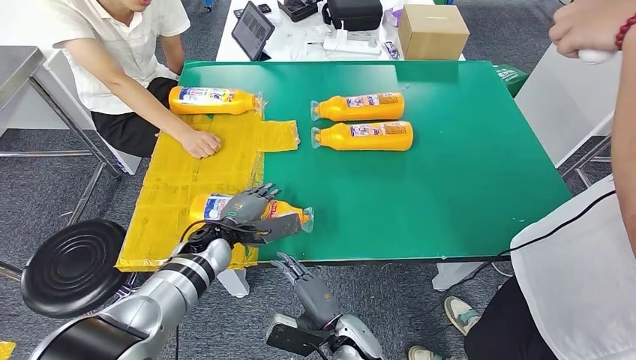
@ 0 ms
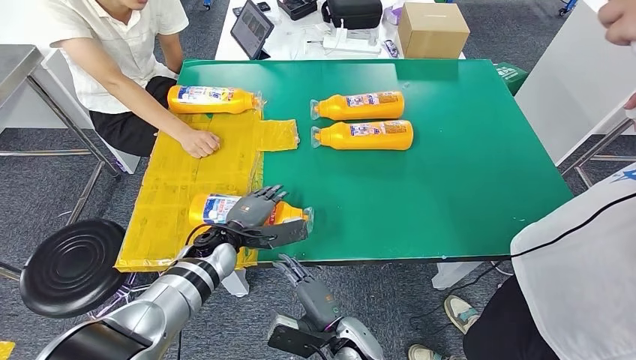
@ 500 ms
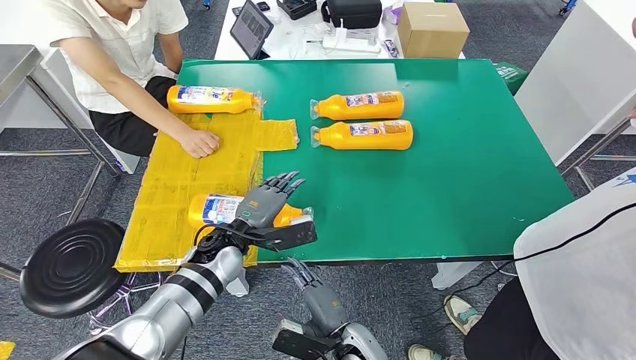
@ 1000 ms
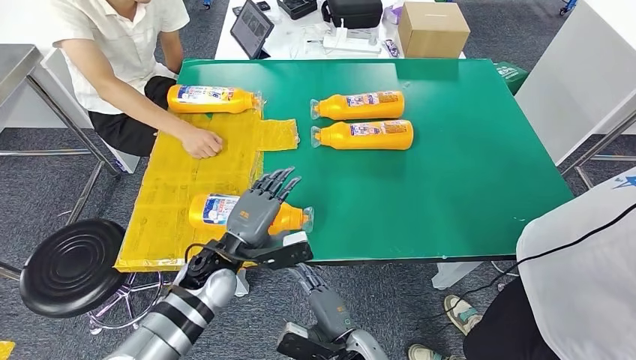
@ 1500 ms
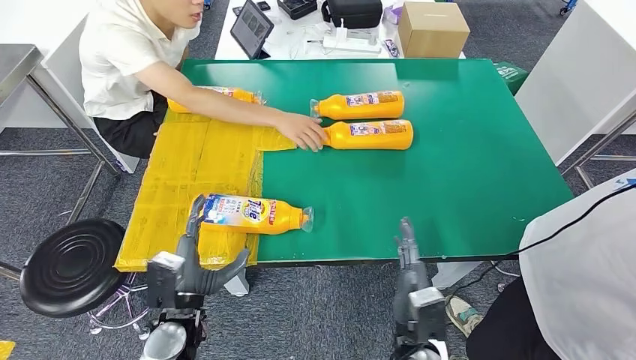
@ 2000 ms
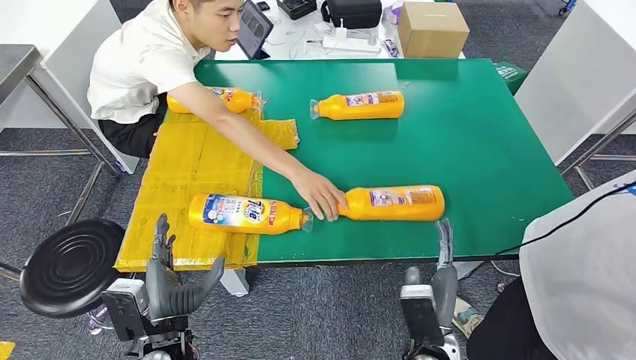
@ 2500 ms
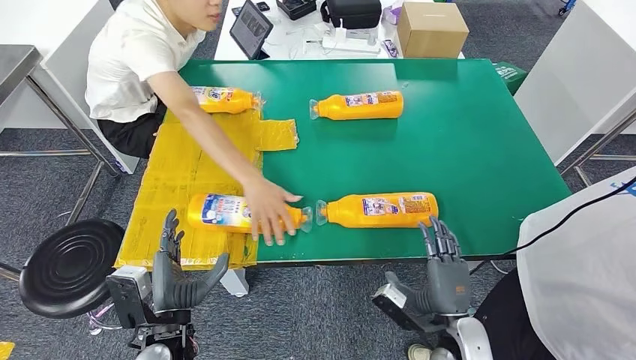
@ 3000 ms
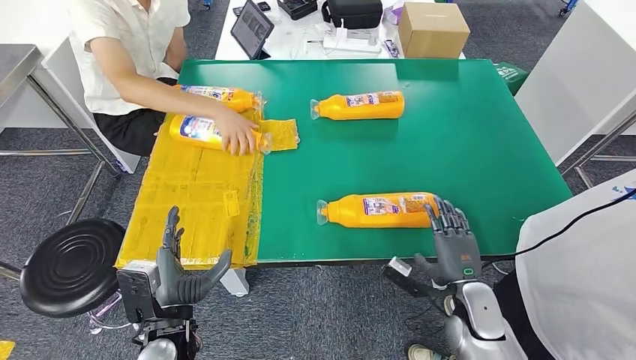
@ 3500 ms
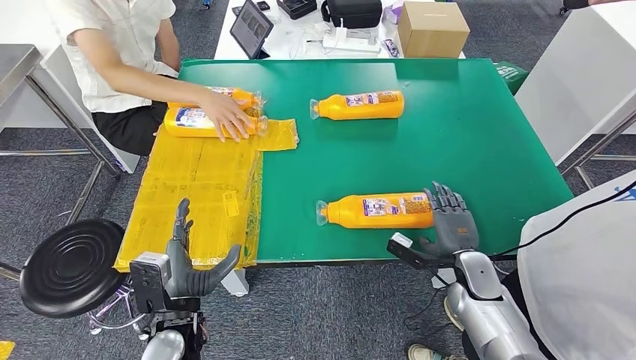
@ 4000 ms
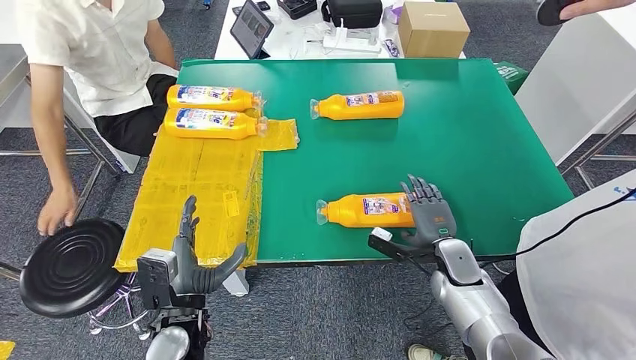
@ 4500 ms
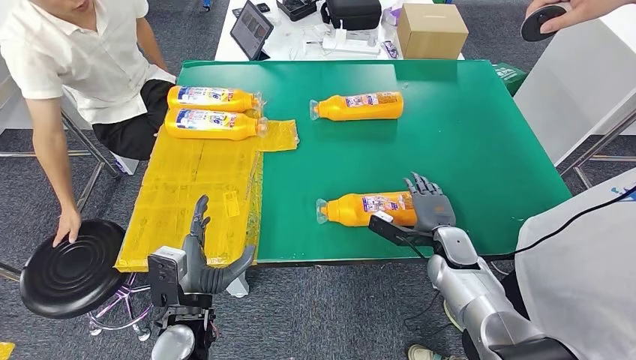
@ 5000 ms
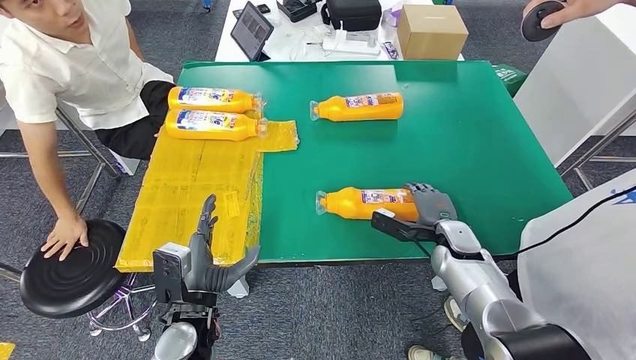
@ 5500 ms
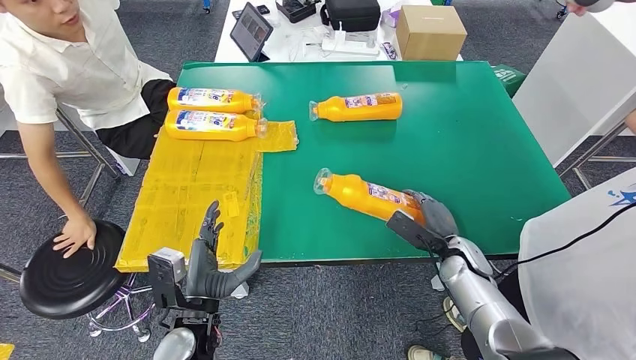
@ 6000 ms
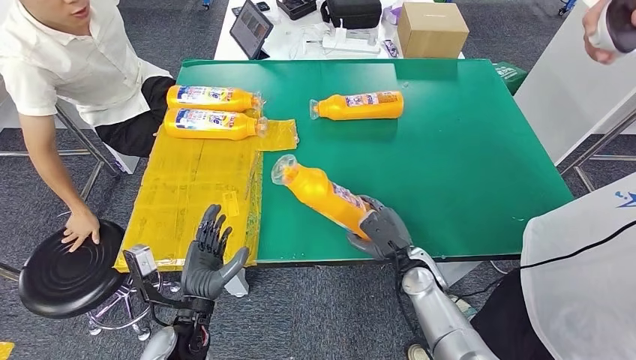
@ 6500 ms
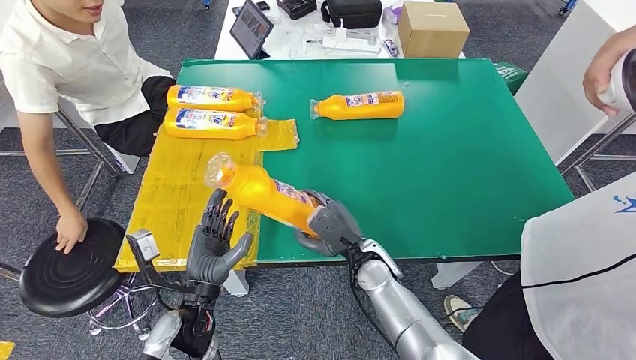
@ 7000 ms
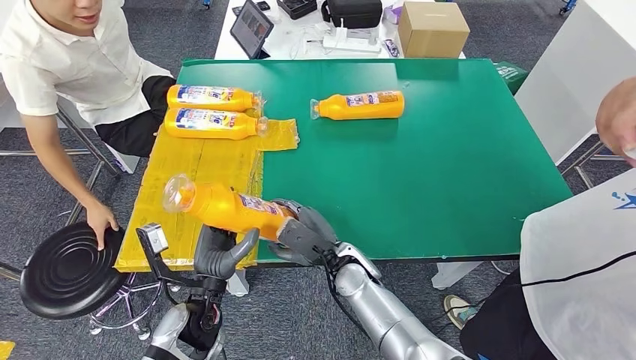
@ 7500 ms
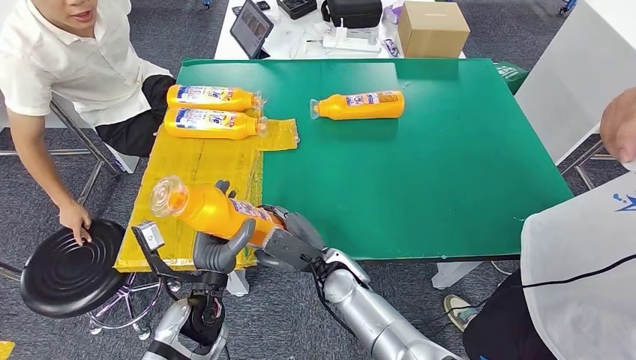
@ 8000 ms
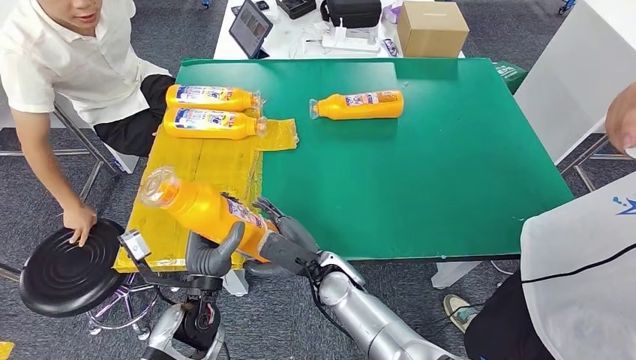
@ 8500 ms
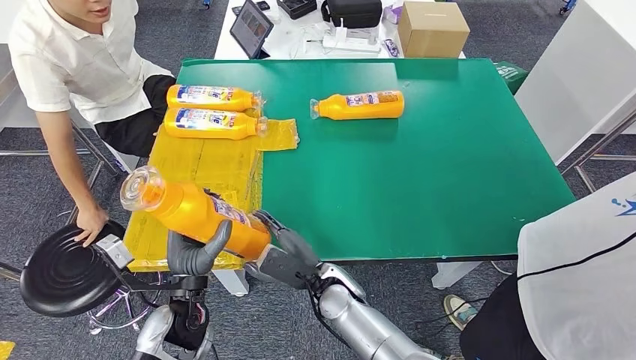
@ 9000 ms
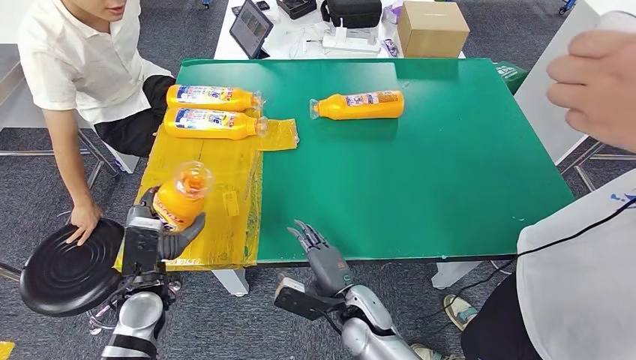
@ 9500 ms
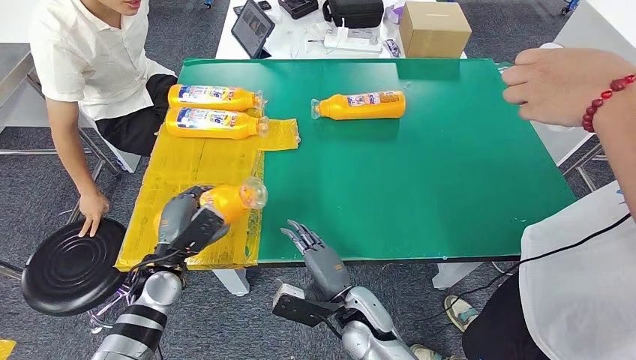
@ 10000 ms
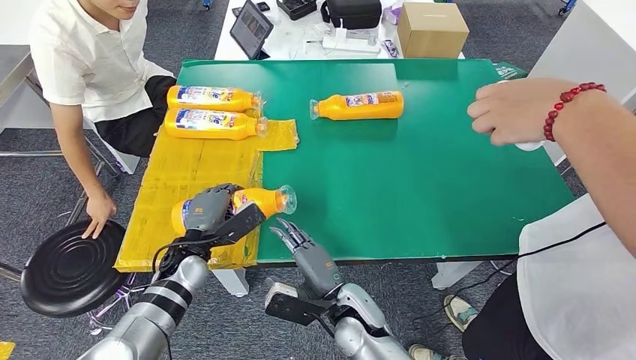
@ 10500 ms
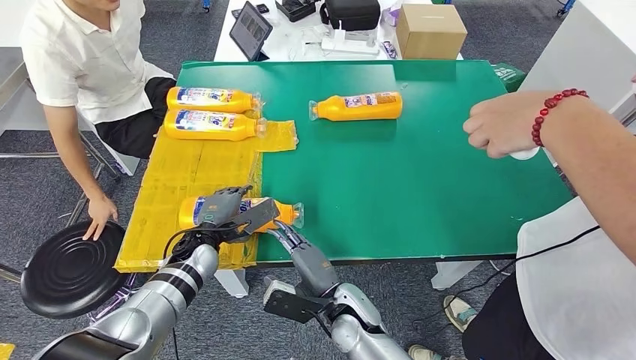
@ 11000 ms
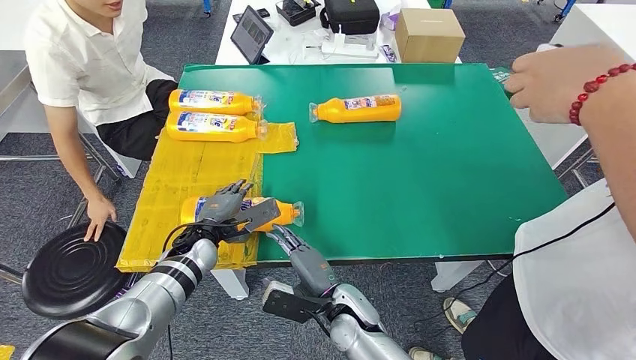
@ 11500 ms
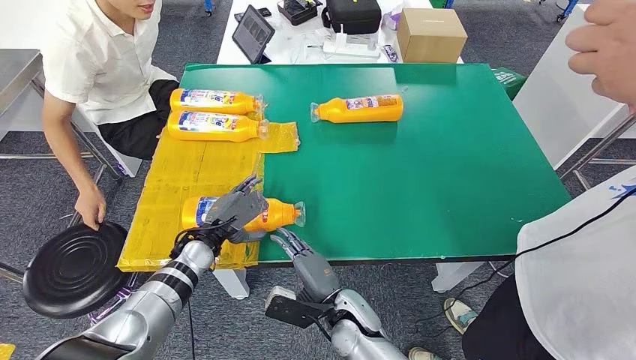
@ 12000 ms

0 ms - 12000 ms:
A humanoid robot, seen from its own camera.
Step, 2500 ms - 6000 ms: Pick up the fast-moving consumer goods bottle from the table.
2000 ms - 4000 ms: The right hand shifts some 20 cm to the right and forward.

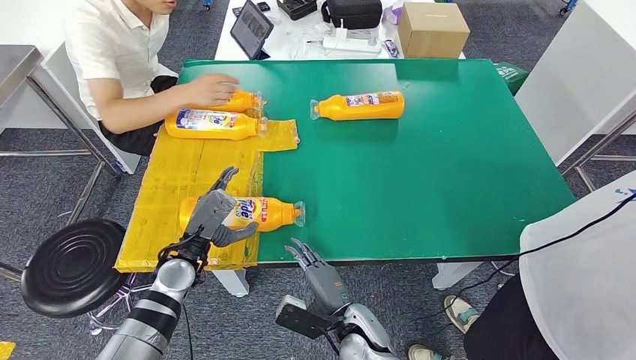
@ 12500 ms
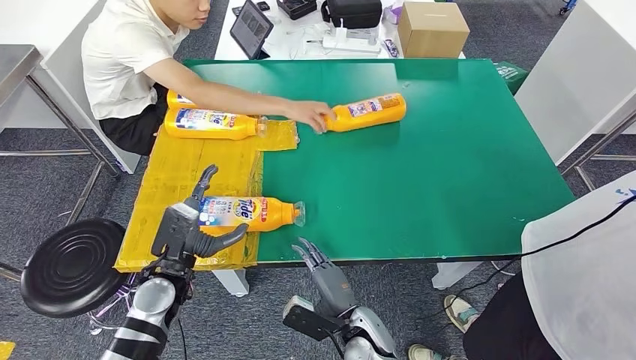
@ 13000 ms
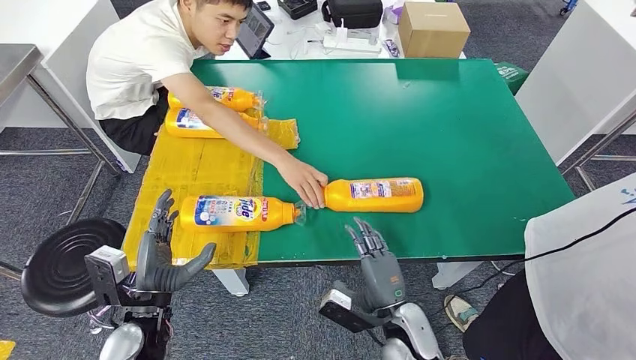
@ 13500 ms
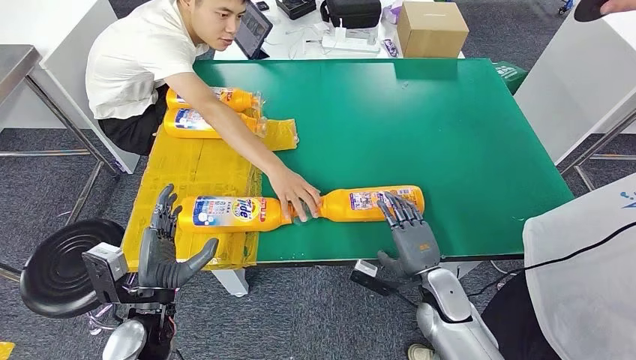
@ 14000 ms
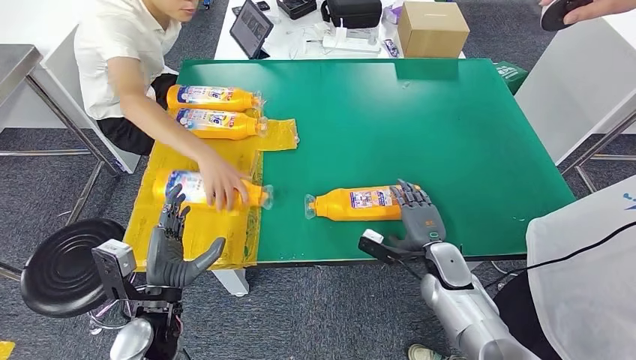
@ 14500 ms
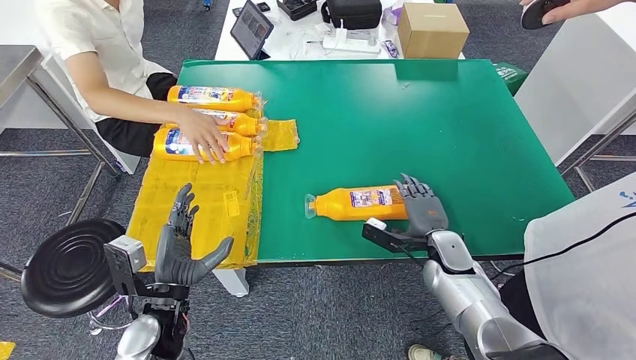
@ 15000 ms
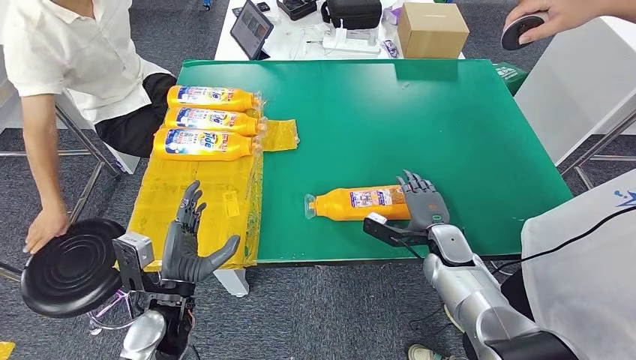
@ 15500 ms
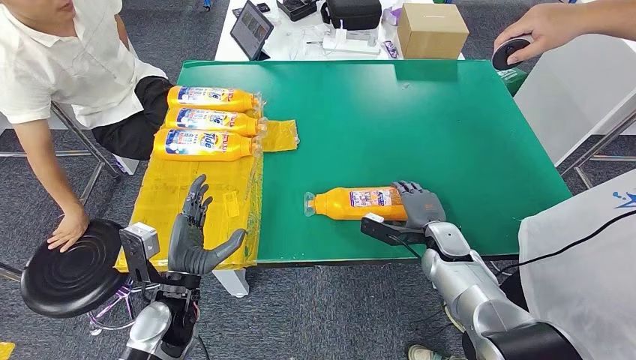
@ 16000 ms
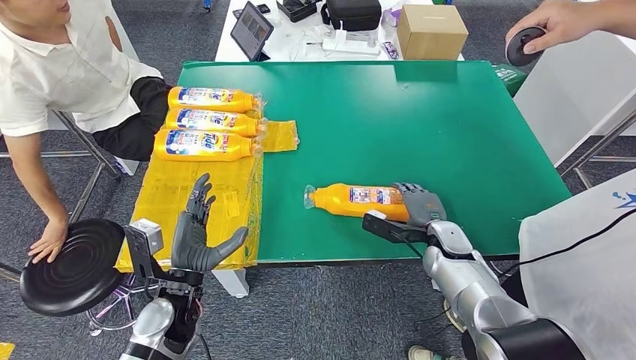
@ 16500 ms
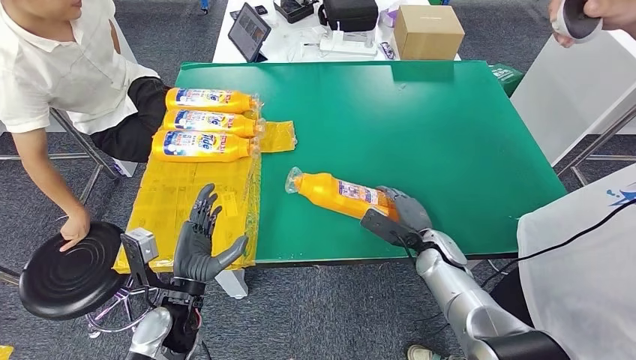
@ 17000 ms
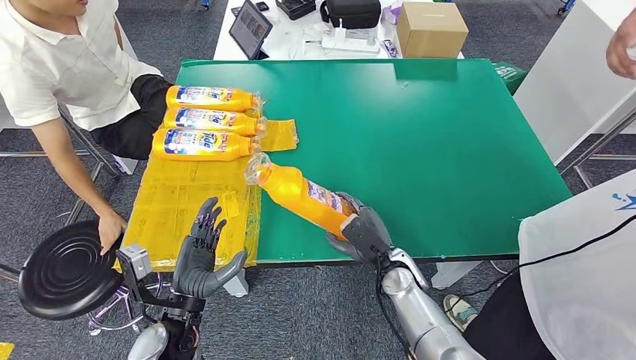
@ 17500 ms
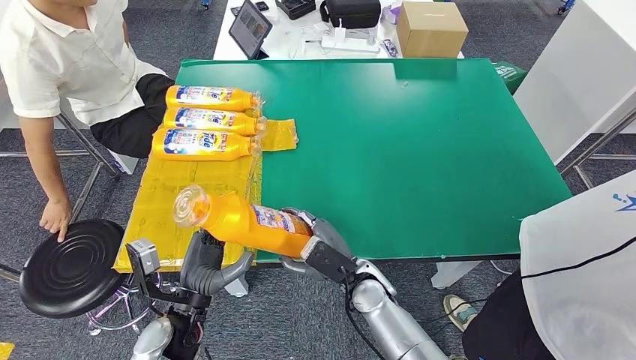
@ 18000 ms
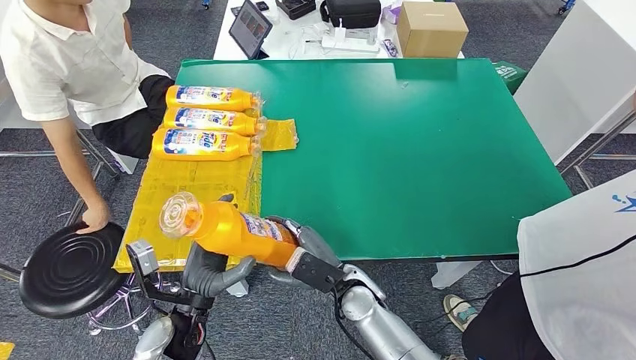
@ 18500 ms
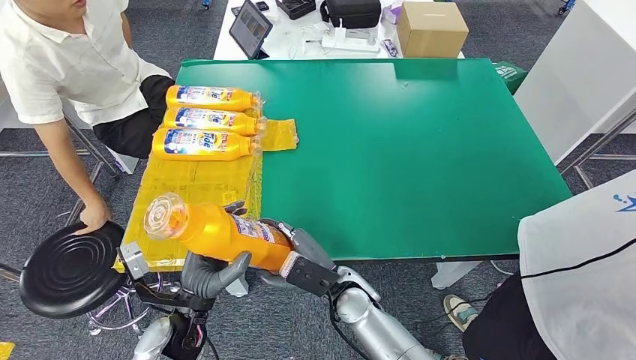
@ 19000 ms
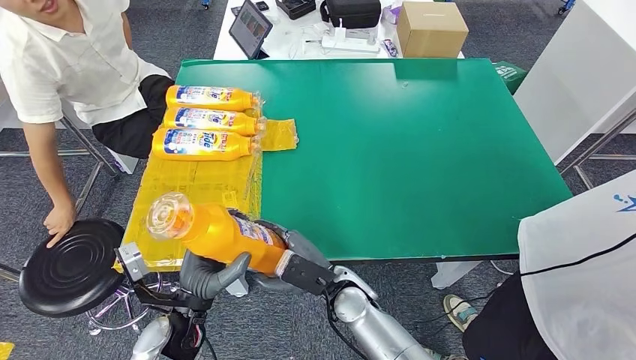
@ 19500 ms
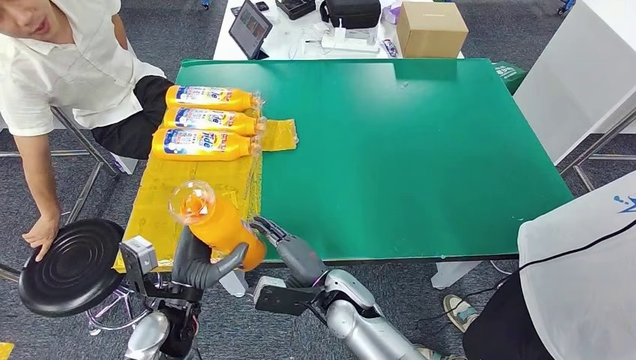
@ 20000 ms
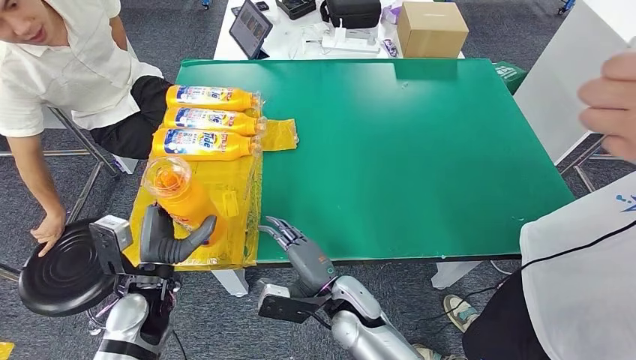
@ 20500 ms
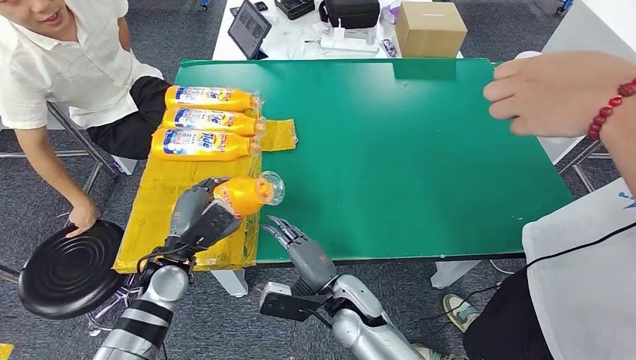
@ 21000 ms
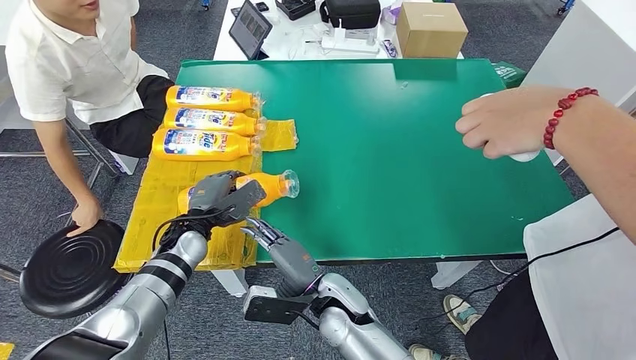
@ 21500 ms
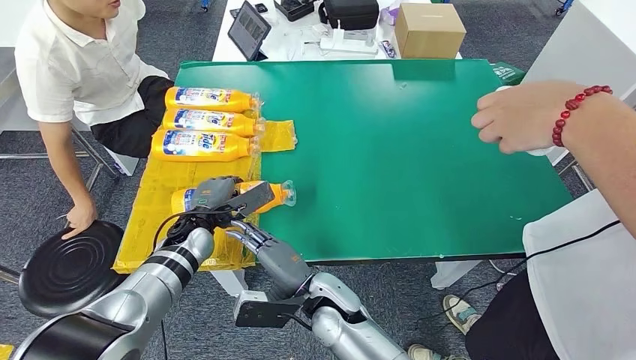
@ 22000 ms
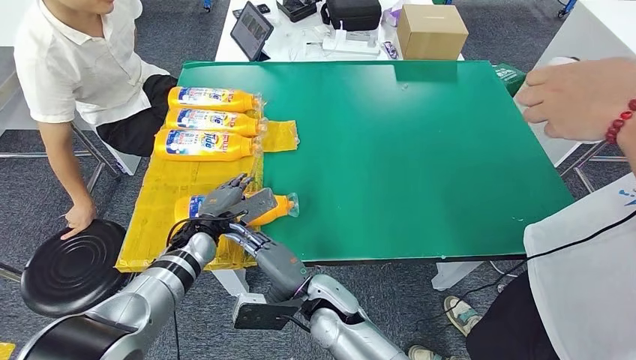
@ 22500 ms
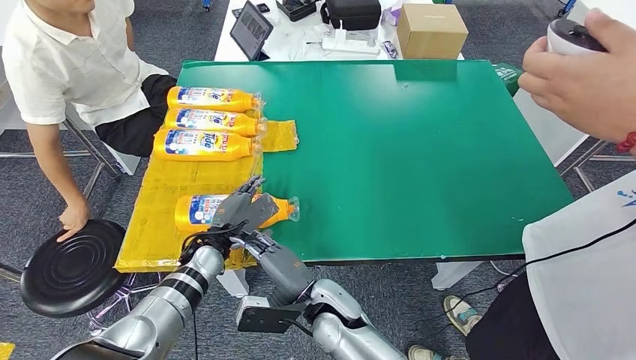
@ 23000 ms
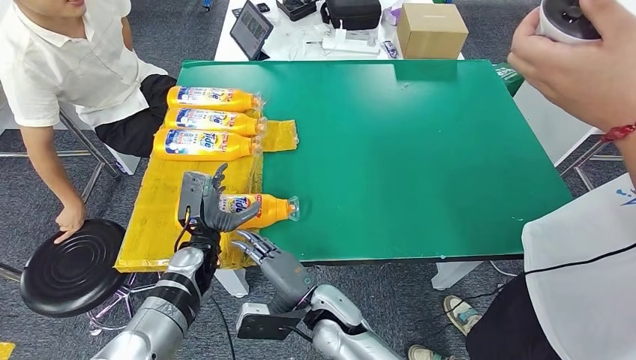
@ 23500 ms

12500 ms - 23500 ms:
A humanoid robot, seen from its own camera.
Step, 14500 ms - 17500 ms: Pick up the fast-moving consumer goods bottle from the table.
Step, 18500 ms - 23500 ms: Flip the fast-moving consumer goods bottle to the front side.
18000 ms - 20000 ms: The right hand ends up approximately 5 cm from where it was.
